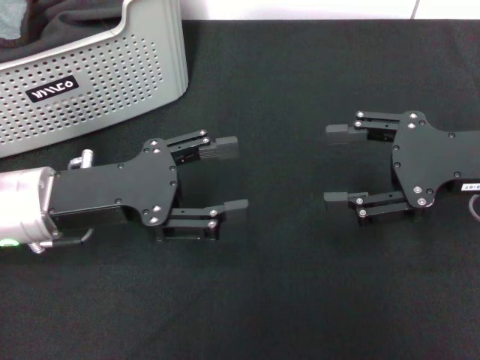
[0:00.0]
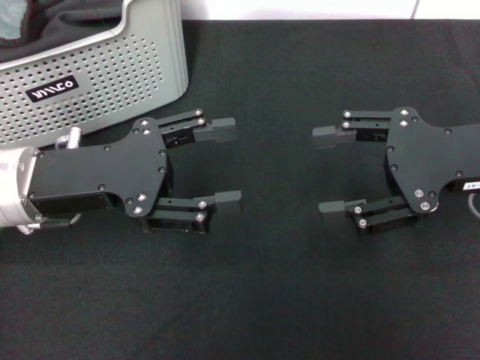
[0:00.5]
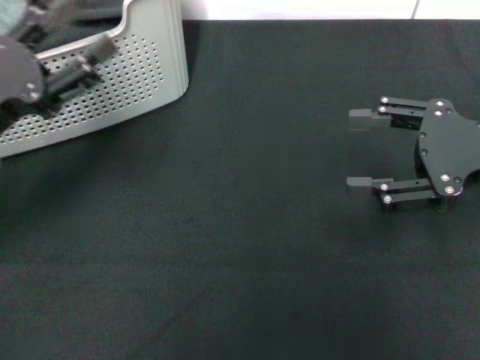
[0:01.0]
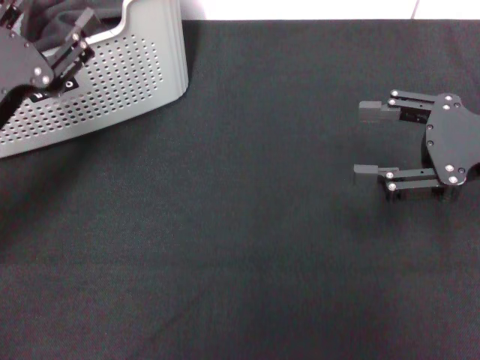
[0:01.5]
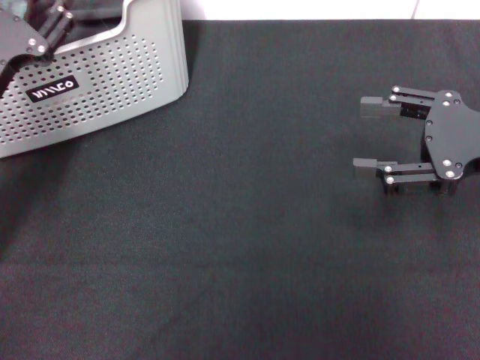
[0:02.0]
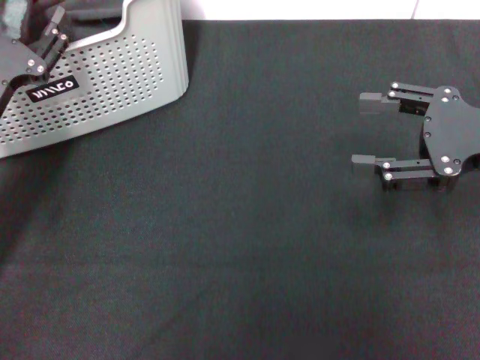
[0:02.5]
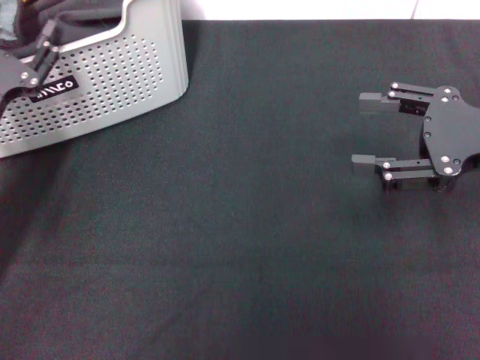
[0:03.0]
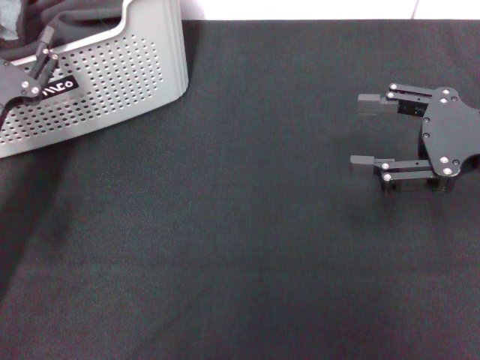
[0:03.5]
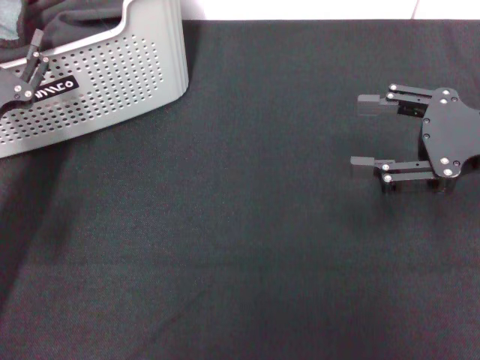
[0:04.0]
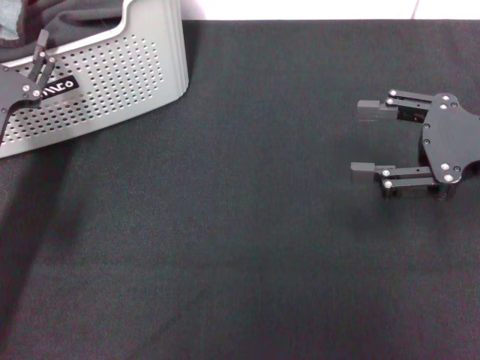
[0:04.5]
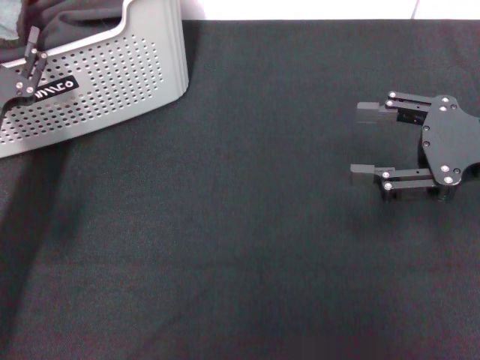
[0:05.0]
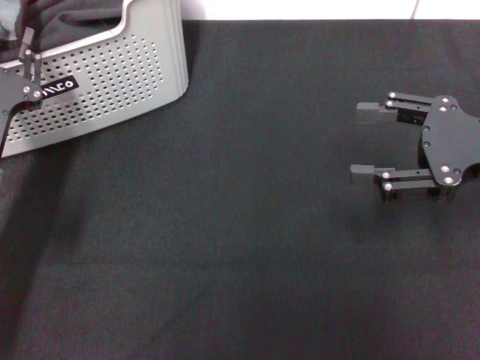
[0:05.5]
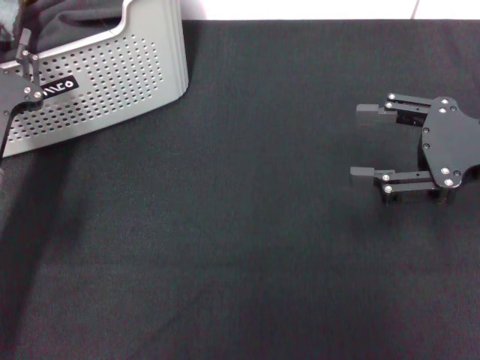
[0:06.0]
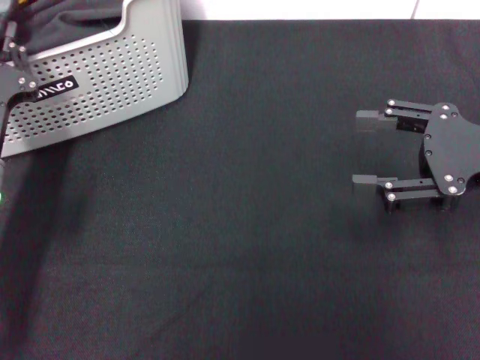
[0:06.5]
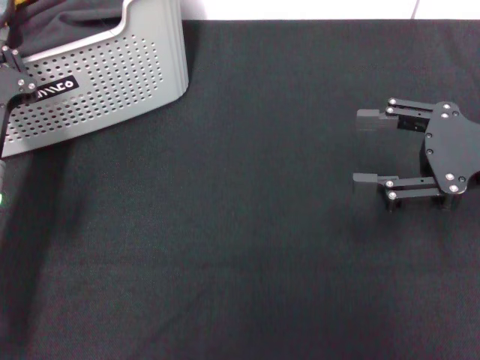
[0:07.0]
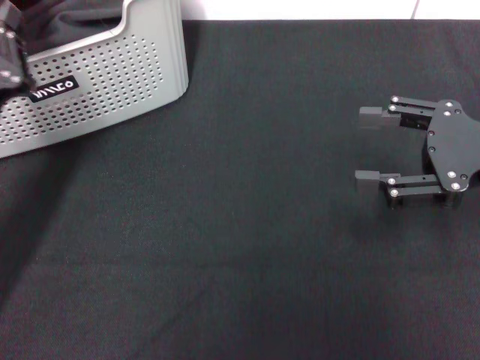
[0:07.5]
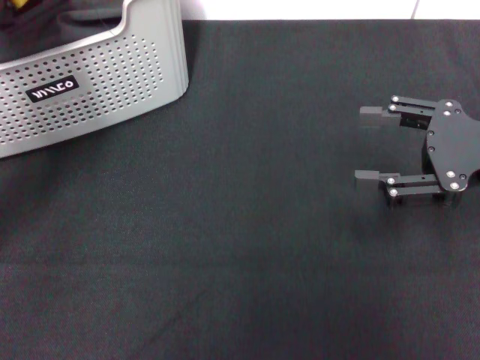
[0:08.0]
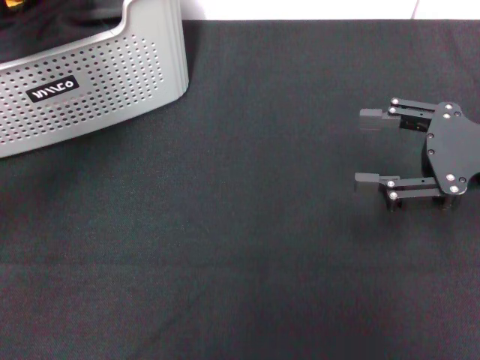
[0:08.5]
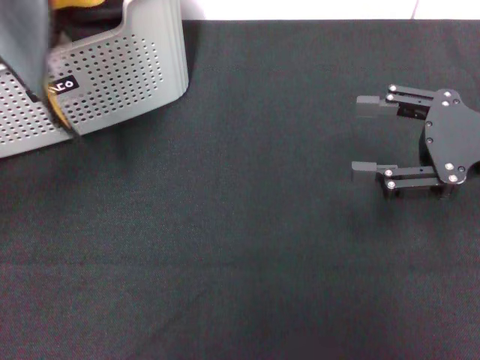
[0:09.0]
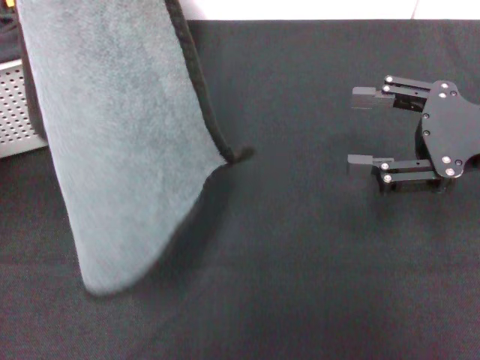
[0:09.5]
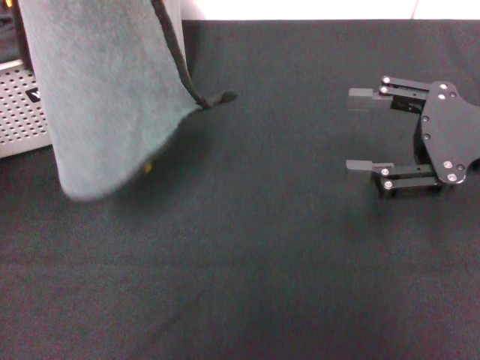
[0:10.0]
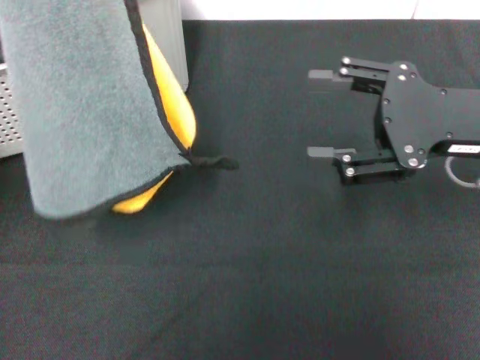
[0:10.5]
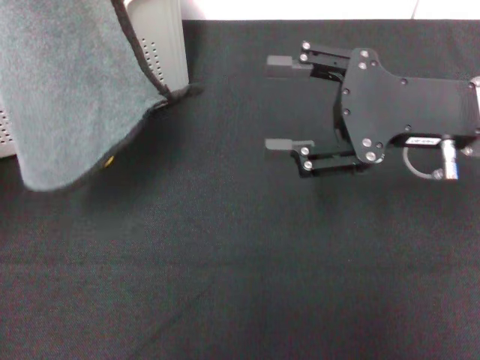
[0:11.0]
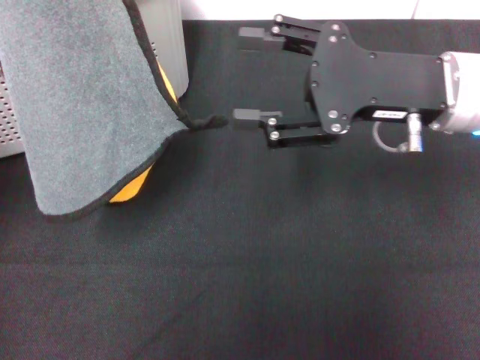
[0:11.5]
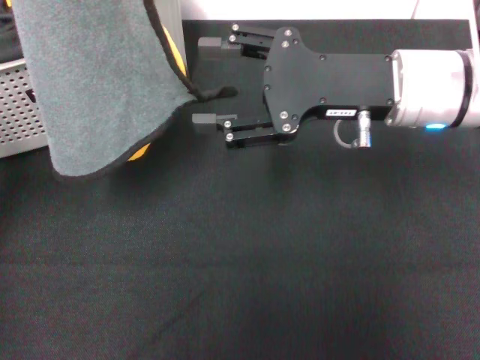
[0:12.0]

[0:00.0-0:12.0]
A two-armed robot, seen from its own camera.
Task of the whole recording: pick up the towel from the storage box and lay it flat on the black tablecloth.
Step, 0:00.0 to 0:07.0: Pick up a towel with the left gripper.
0:00.0 to 0:02.0: The left gripper travels to the left by some 5 cm.
0:02.0 to 0:04.0: The left gripper shifts by some 5 cm.
0:04.0 to 0:06.0: The left gripper closes its fingers.
0:06.0 to 0:08.0: The left gripper goes approximately 10 cm upward, and closes up.
0:08.0 to 0:10.0: The left gripper goes some 10 cm upward.
0:10.0 to 0:12.0: The right gripper heads to the left and forward, covering roughly 15 cm.

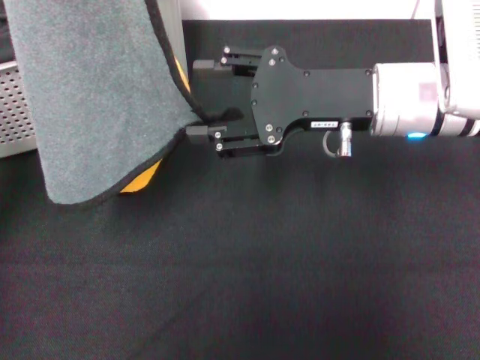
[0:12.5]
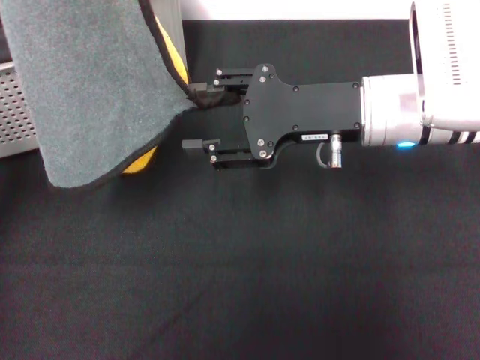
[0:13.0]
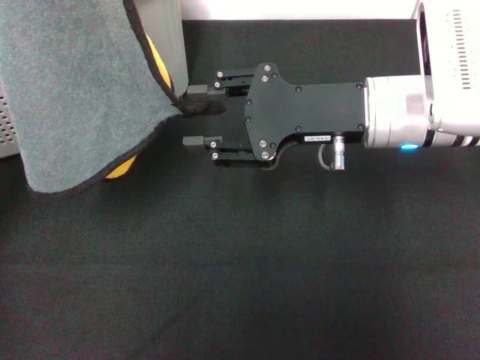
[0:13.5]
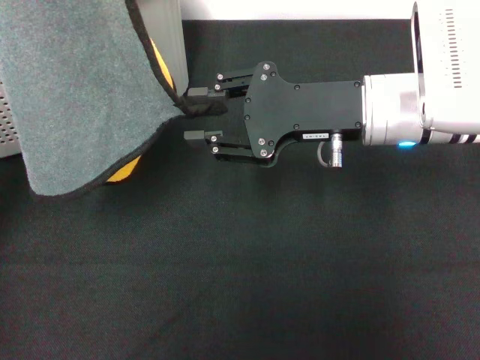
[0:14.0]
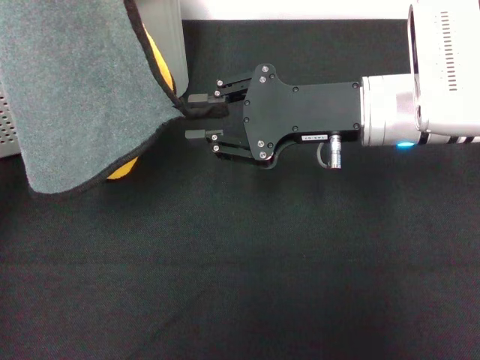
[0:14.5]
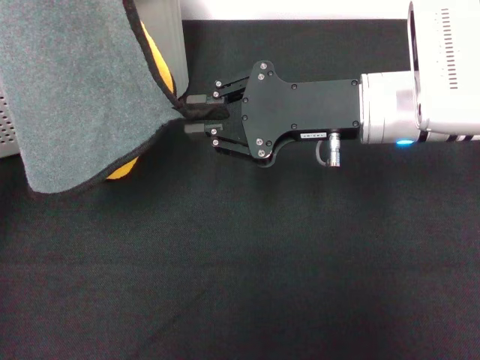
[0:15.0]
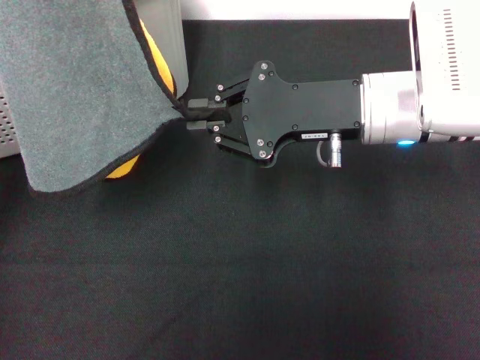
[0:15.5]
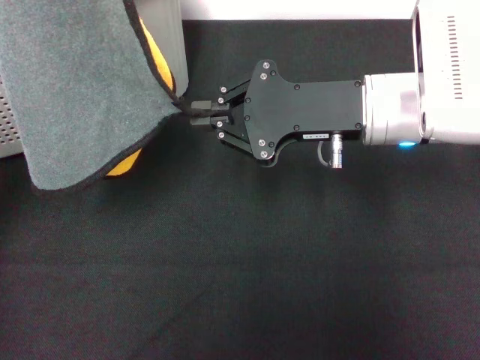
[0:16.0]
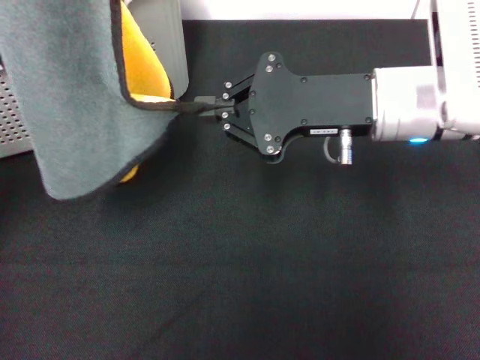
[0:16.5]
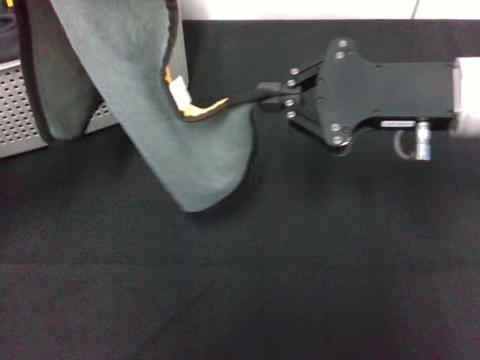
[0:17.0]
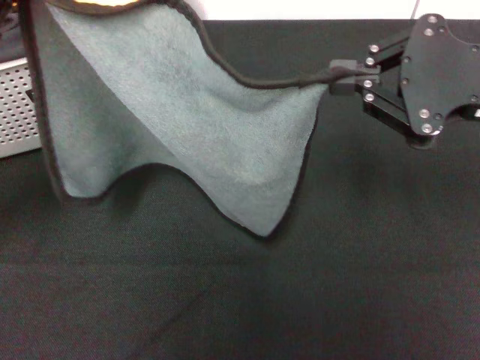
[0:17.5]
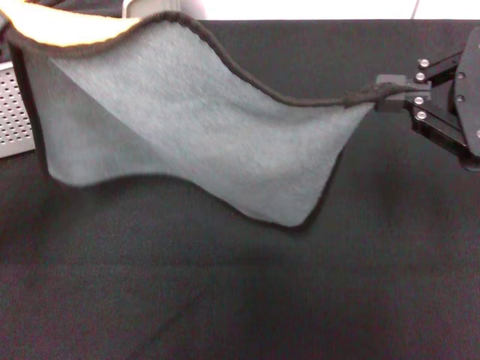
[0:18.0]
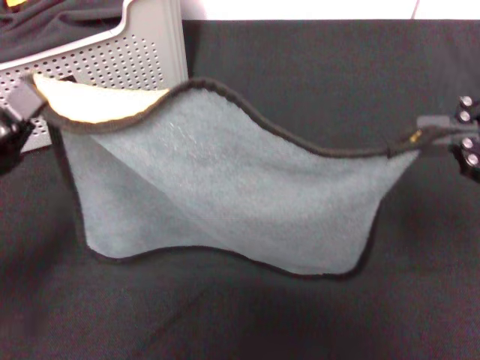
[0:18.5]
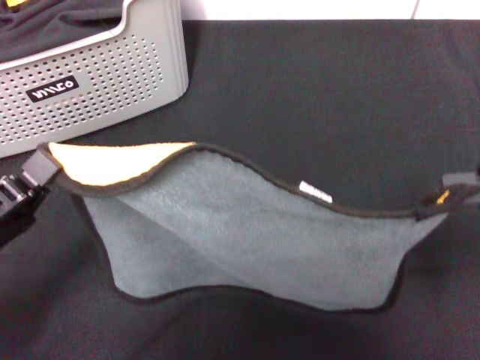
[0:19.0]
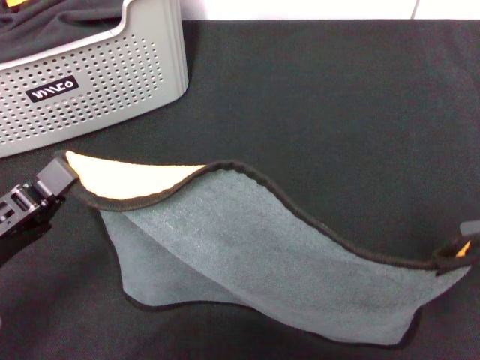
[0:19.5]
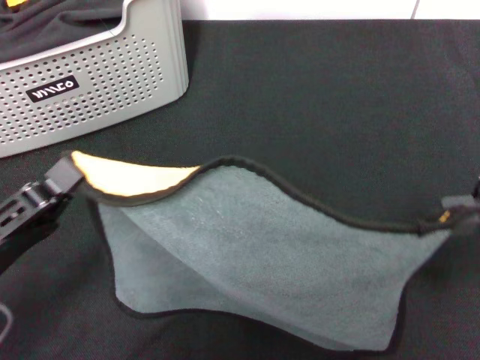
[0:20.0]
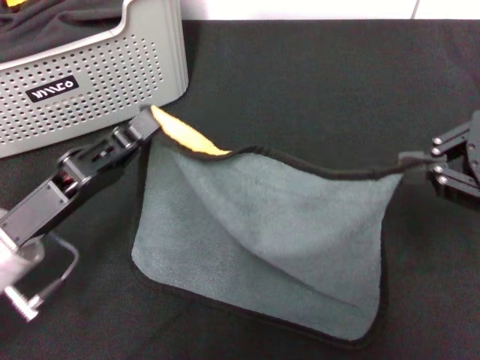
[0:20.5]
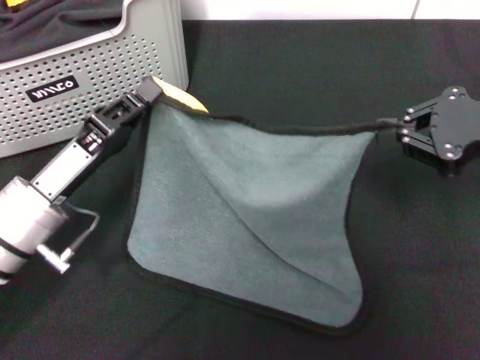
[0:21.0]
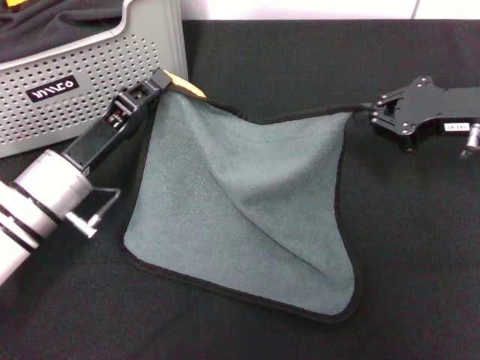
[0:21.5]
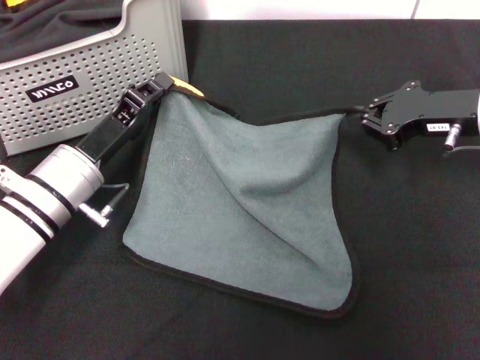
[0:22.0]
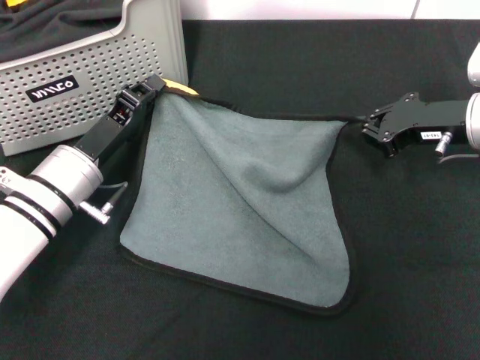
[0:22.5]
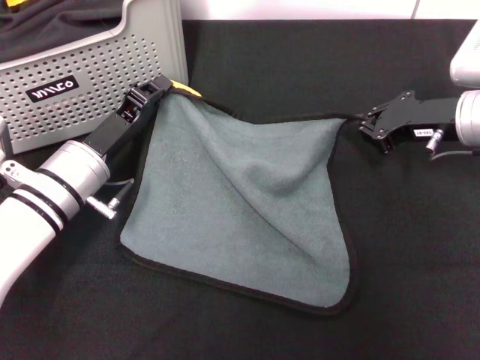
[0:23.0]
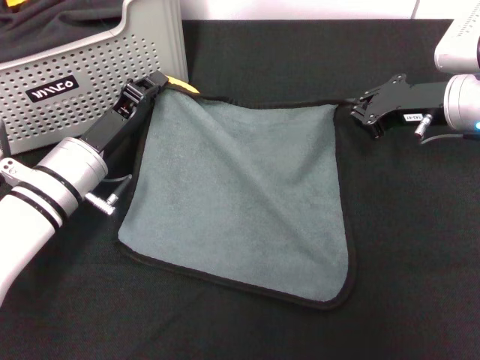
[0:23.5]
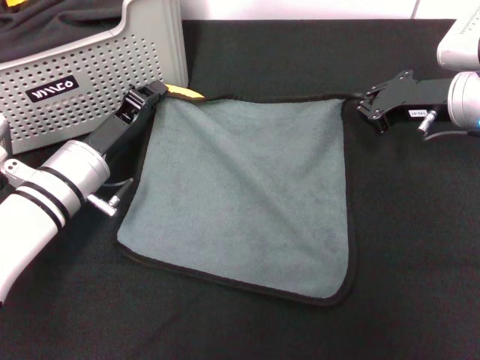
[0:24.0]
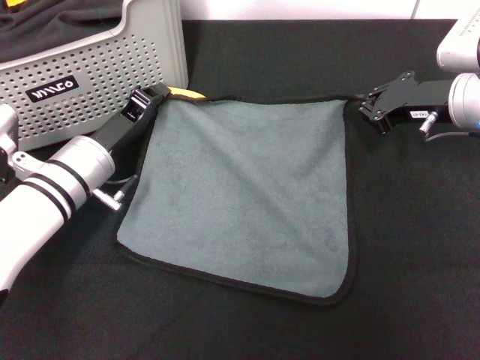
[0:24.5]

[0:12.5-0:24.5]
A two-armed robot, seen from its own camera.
Task of the whole recording: pick up the towel from the storage box and lay it flat on the black tablecloth.
Step, 0:12.5 to 0:16.0: Spread the towel flat with the left gripper.
0:12.5 to 0:14.5: The right gripper closes.
0:14.5 to 0:16.5: The right gripper closes.
0:16.5 to 0:18.5: The right gripper moves to the right, backward and upward, approximately 20 cm; the left gripper heads downward and backward, covering roughly 15 cm.
0:18.5 to 0:20.5: The right gripper is displaced downward by some 5 cm. The left gripper is displaced to the right by roughly 5 cm.
0:20.5 to 0:22.5: The right gripper shifts roughly 15 cm forward and downward, while the left gripper goes approximately 10 cm forward.
0:22.5 to 0:24.5: The grippers make only small movements.

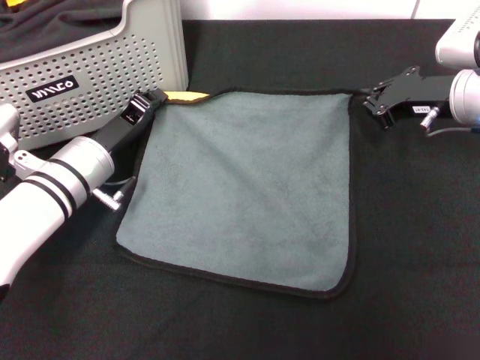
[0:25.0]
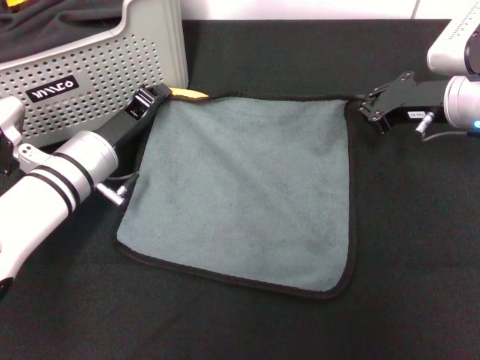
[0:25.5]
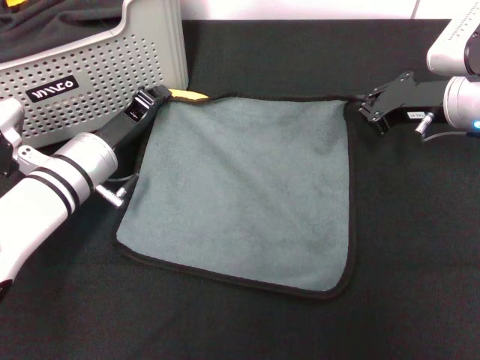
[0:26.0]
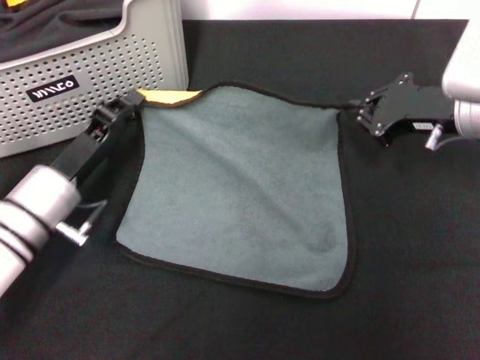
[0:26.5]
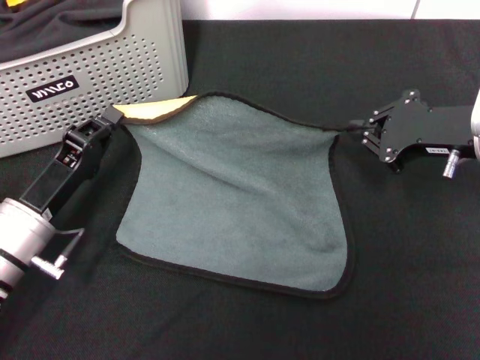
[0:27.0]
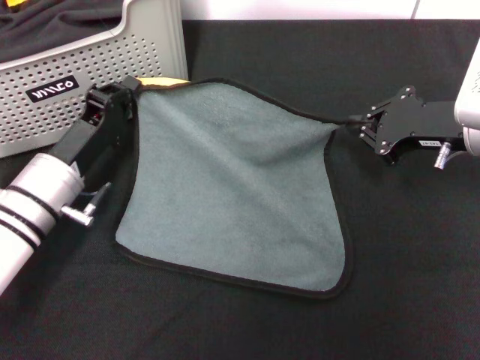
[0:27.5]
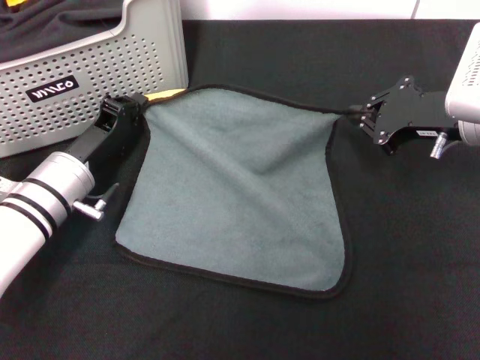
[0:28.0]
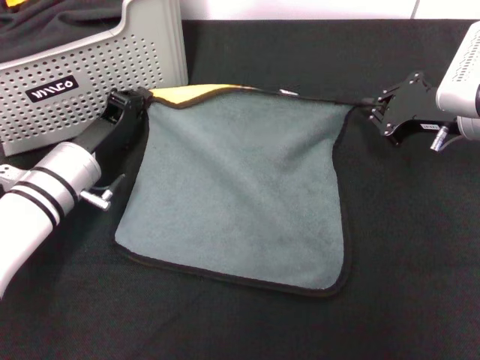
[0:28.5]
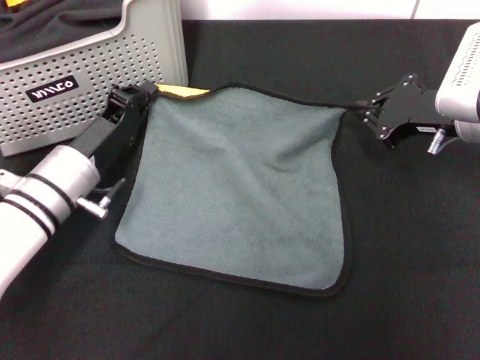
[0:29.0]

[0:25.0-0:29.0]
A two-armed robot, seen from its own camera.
Task of the whole recording: pick up the towel from the storage box and lay it flat on the black tablecloth.
0:25.0 to 0:27.0: The grippers both shift backward by some 10 cm.
0:27.0 to 0:29.0: The left gripper moves forward, some 5 cm.
